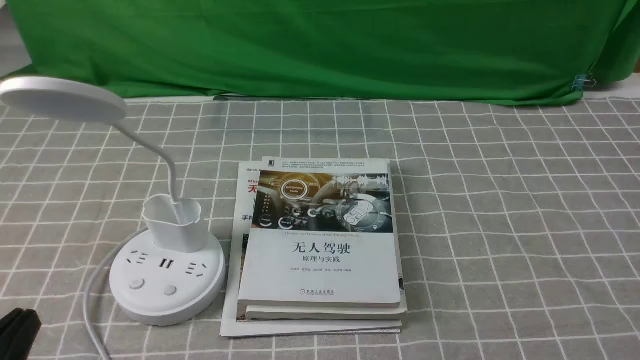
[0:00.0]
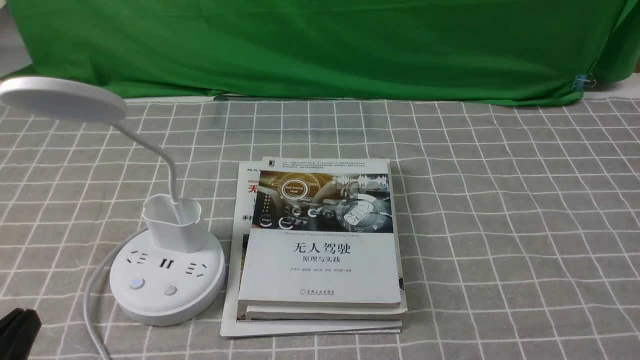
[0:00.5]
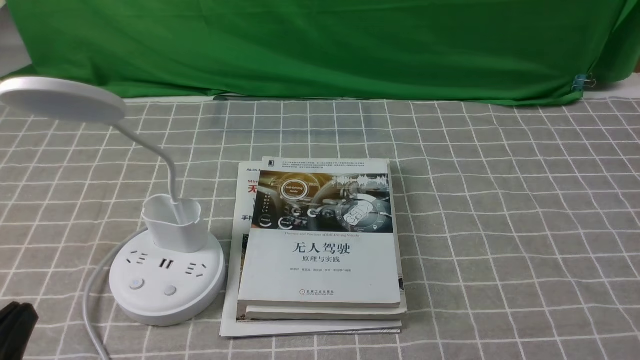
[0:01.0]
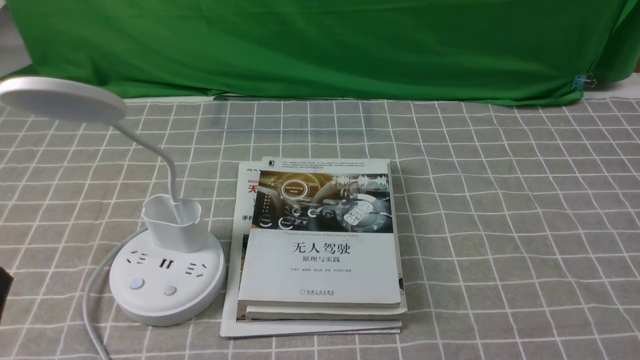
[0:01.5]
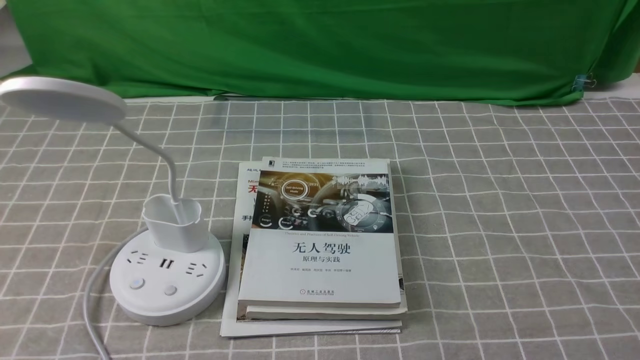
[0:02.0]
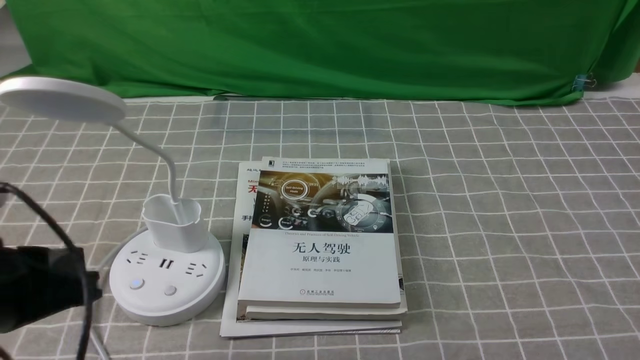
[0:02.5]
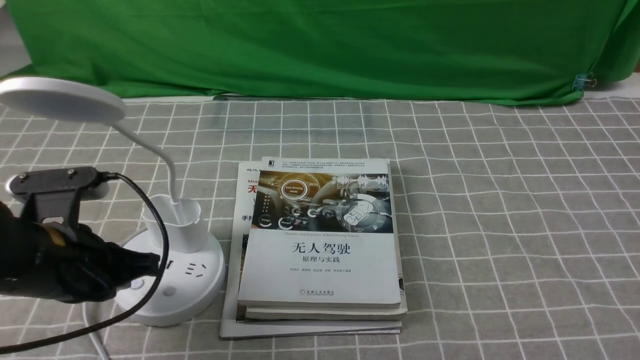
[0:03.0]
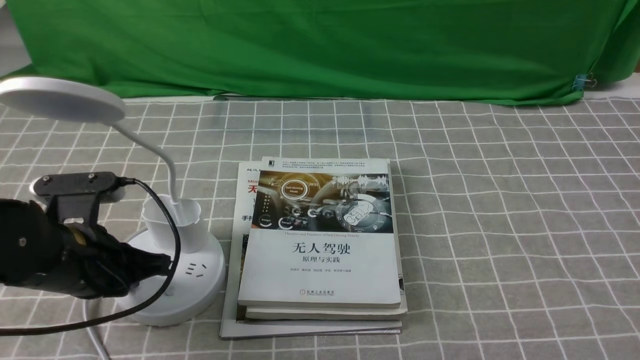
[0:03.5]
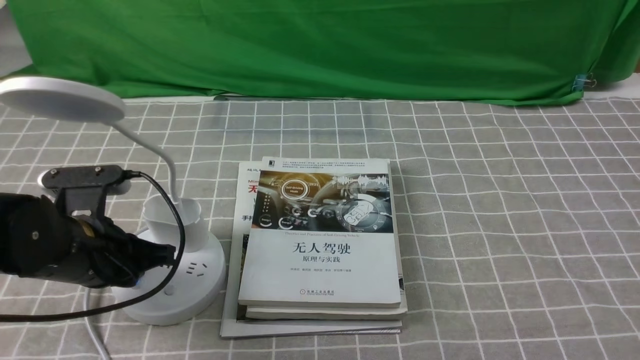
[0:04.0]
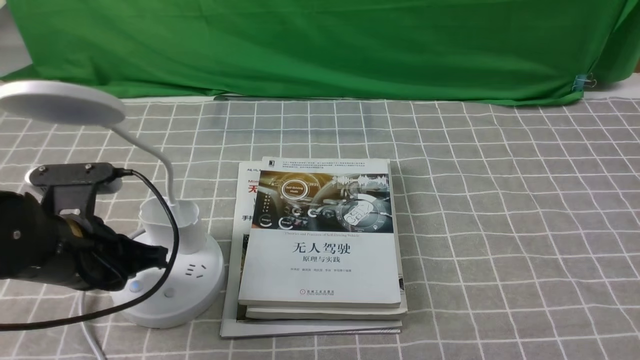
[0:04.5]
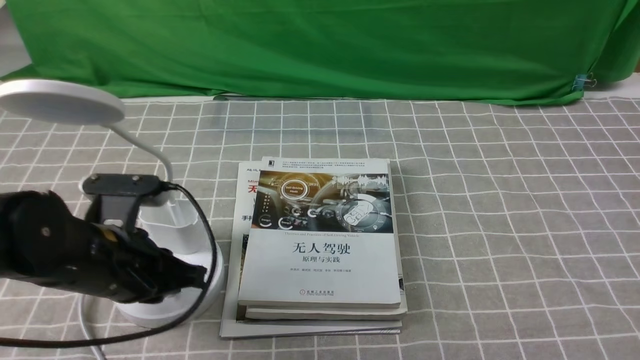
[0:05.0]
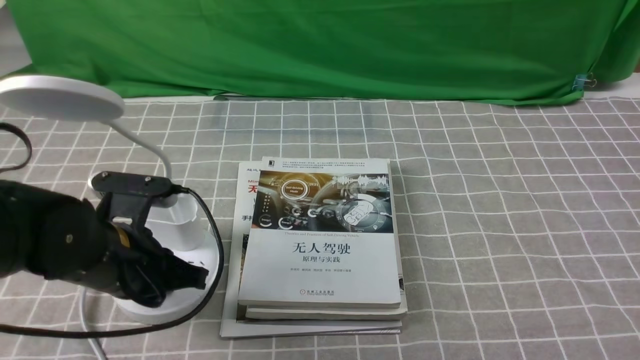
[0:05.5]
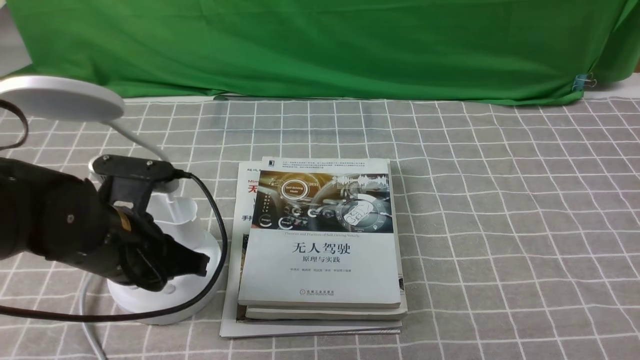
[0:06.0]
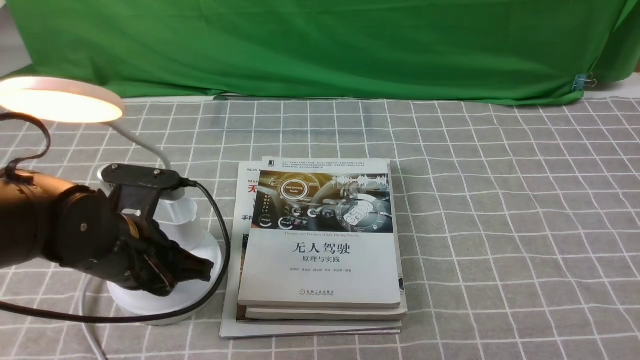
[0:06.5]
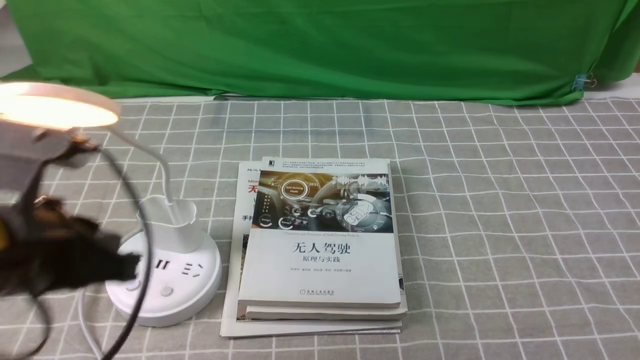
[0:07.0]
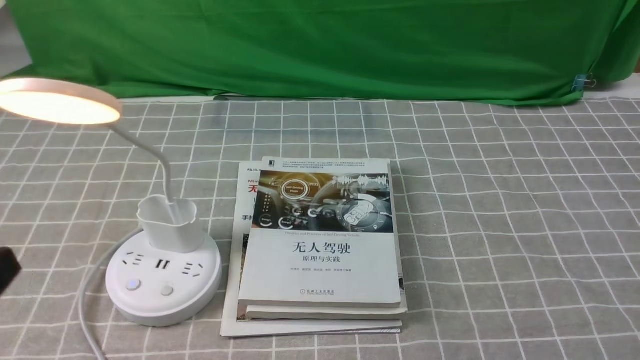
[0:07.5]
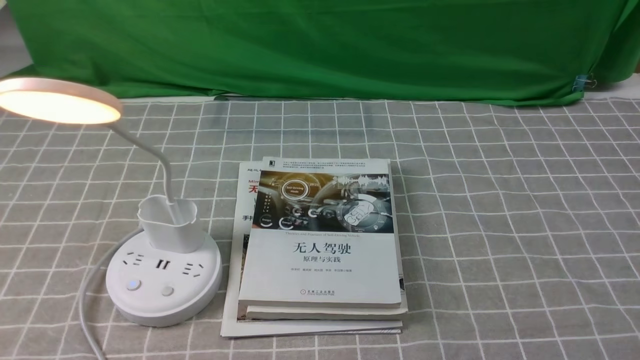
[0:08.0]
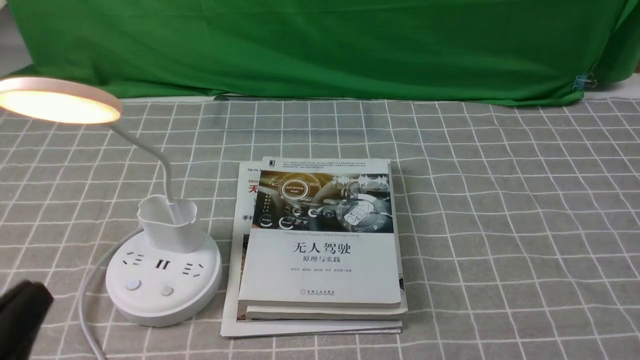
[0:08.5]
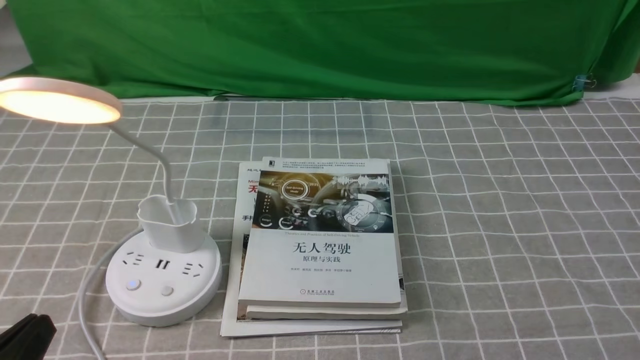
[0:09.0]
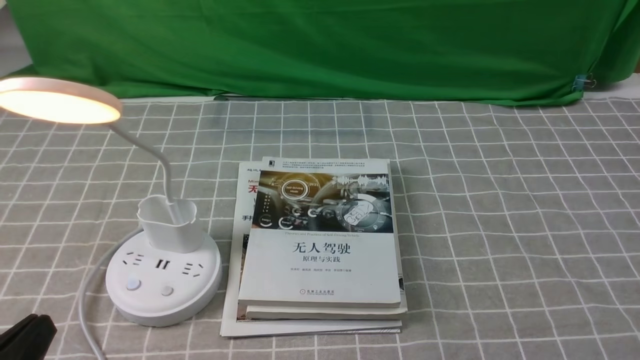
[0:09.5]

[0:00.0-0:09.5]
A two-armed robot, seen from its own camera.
Step, 0:00.0 to 0:06.5: use the left arm to press the button switch on the lamp holder.
0:02.0 to 0:04.0: The left gripper heads forward and downward, covering some 20 cm.
0:04.0 to 0:05.5: The grippers make only small movements.
0:05.5 to 0:07.5: The left gripper heads backward and upward, covering roughly 20 cm.
0:07.5 to 0:09.5: The left gripper goes some 10 cm downward.
